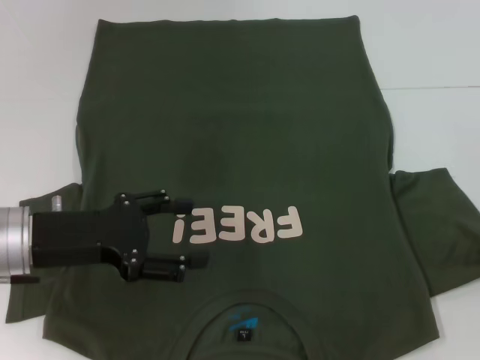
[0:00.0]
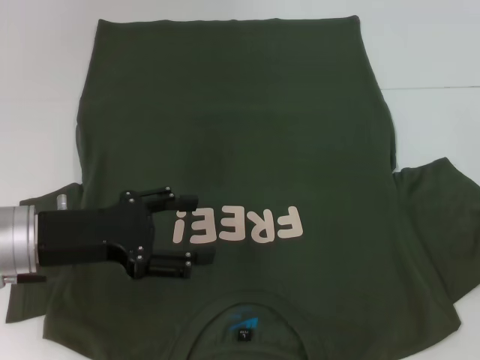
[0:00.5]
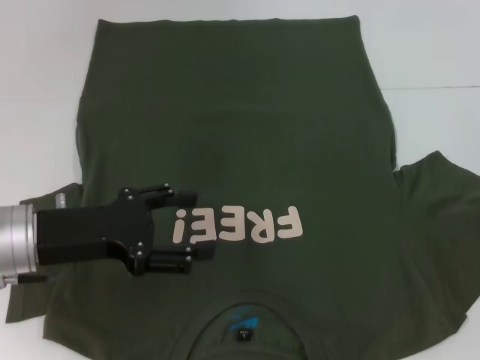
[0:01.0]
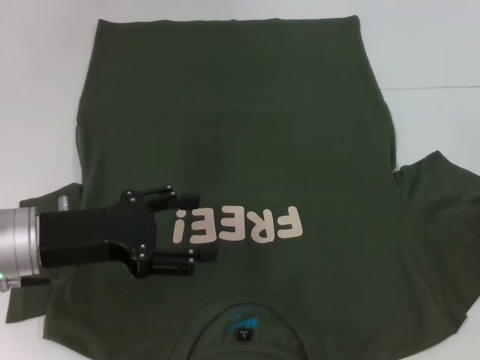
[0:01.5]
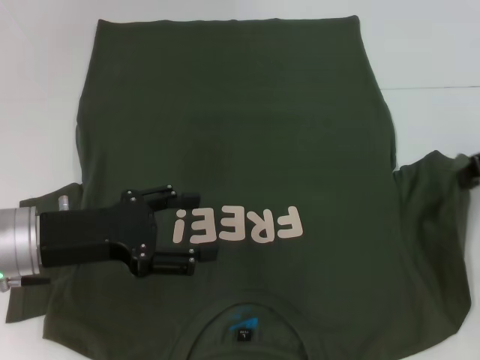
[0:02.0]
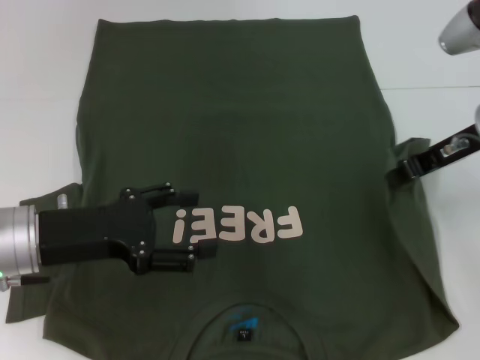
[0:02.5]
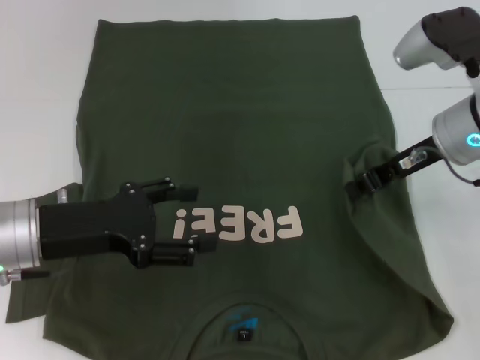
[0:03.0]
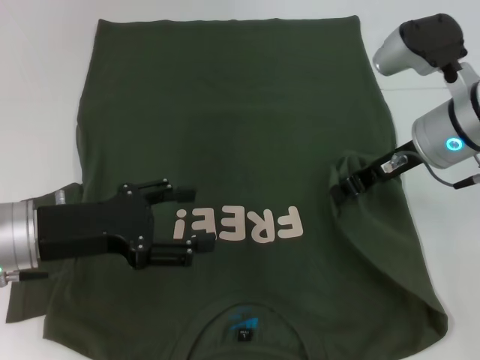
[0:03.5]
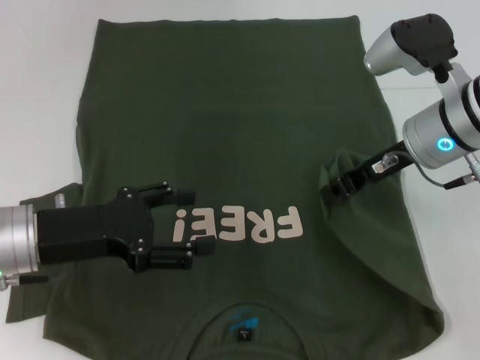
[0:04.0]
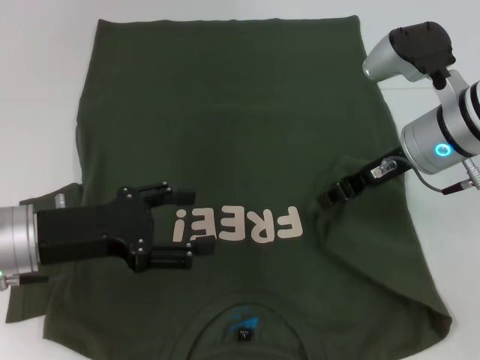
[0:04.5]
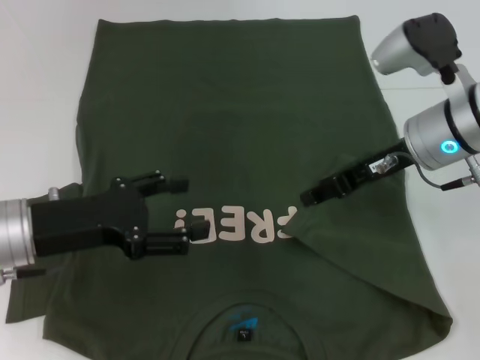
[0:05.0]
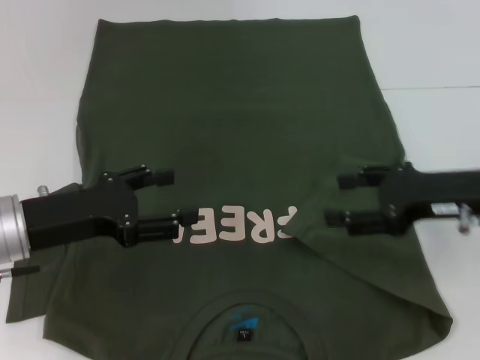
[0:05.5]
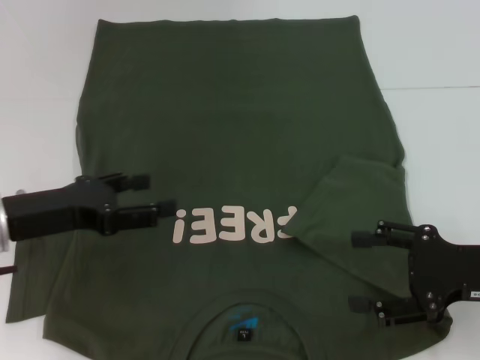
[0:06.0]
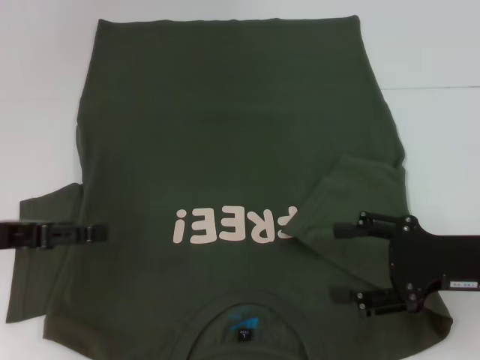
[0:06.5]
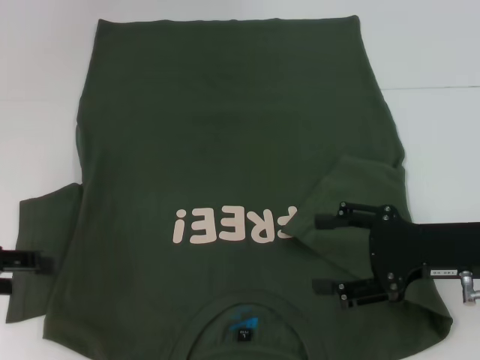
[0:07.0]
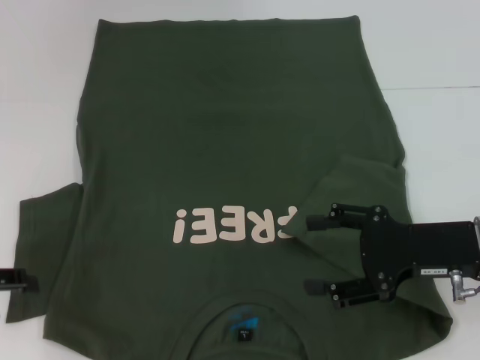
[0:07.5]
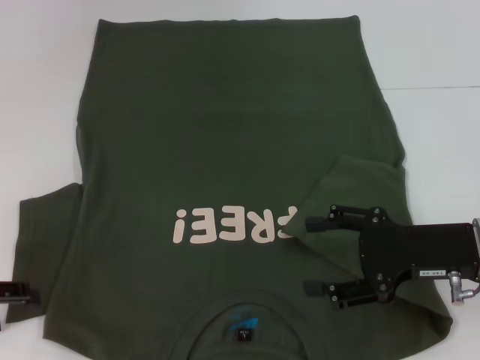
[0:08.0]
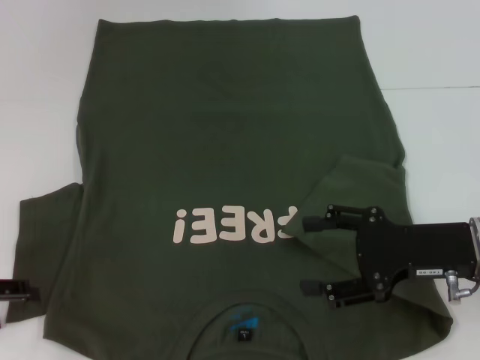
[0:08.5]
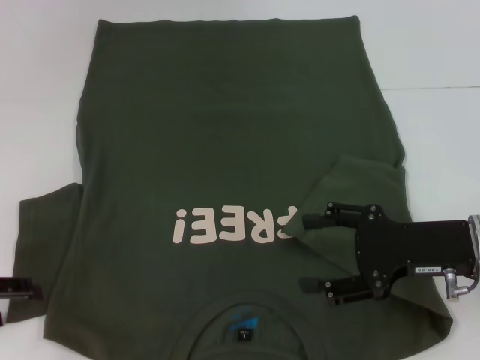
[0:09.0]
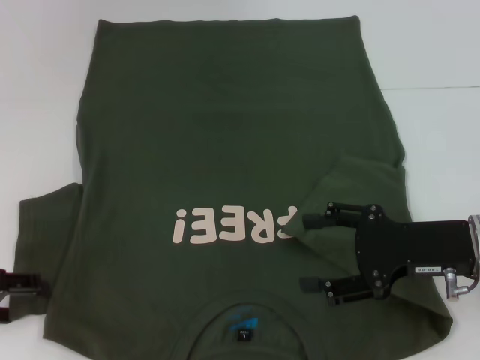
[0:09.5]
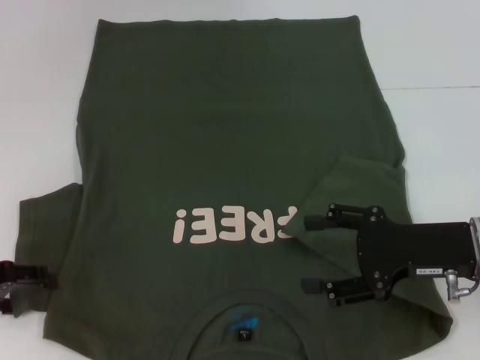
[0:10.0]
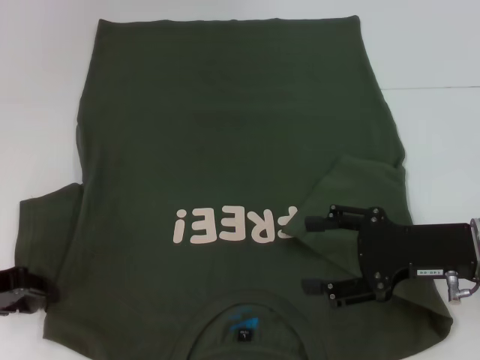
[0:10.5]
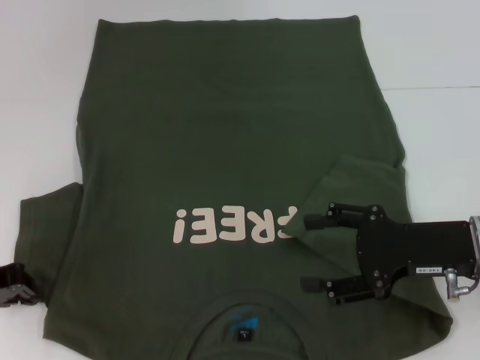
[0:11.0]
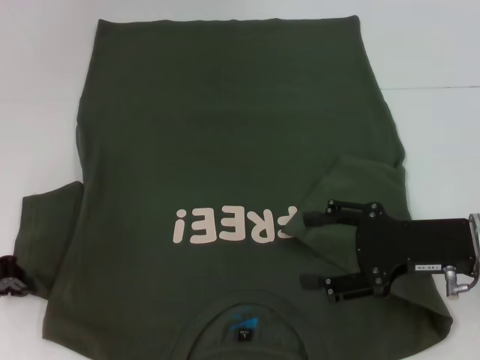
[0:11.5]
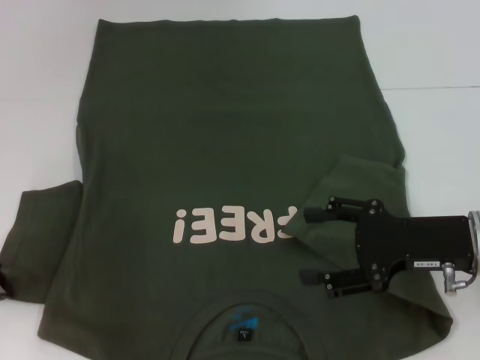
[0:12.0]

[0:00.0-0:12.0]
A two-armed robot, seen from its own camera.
Step, 0:00.0 to 0:04.5: Fold the bottom right sleeve with your right hand.
0:00.0 to 0:02.0: The right gripper heads upward, covering some 5 cm.
0:02.0 to 0:04.0: The right gripper moves to the left, approximately 10 cm.
0:04.0 to 0:06.0: The right gripper is displaced backward, to the right and downward by roughly 15 cm, and opens.
0:06.0 to 0:08.0: The left gripper moves to the left, about 10 cm.
0:08.0 to 0:10.0: There are only small adjustments of the grippers.
0:10.0 to 0:12.0: The left gripper closes up.

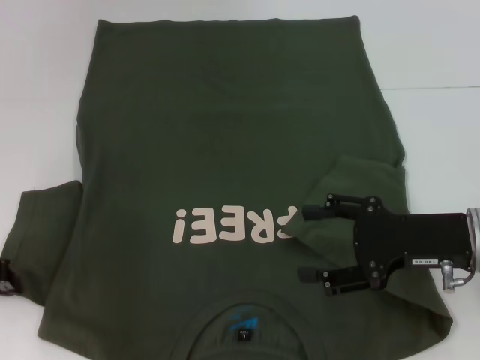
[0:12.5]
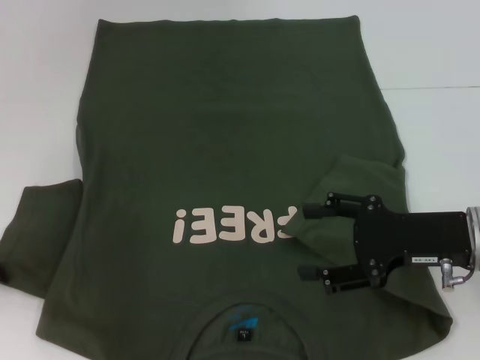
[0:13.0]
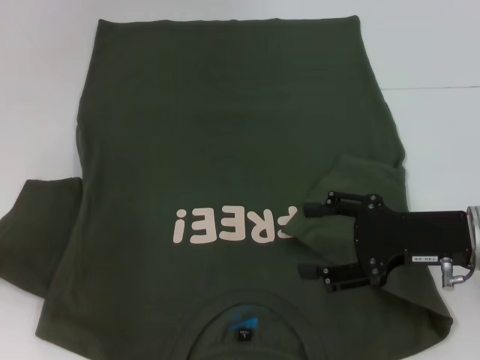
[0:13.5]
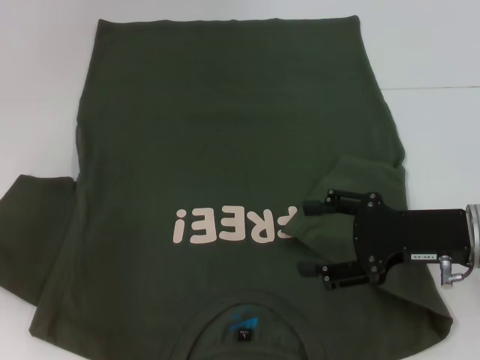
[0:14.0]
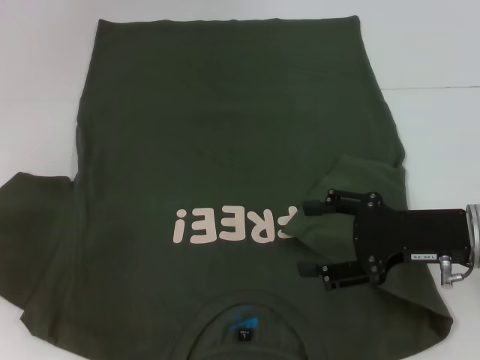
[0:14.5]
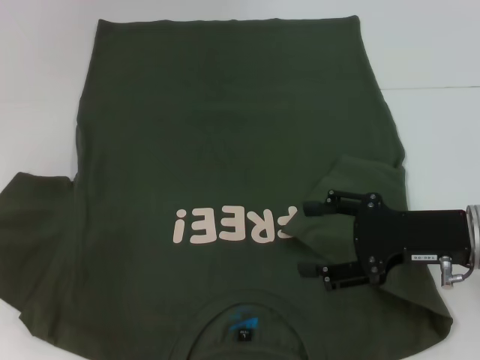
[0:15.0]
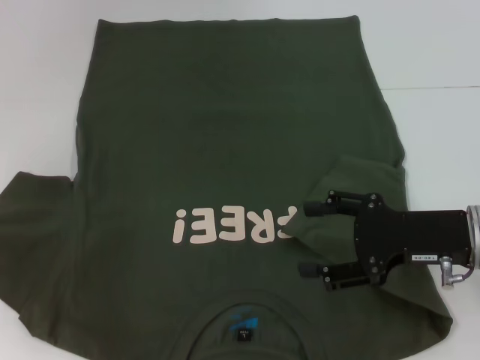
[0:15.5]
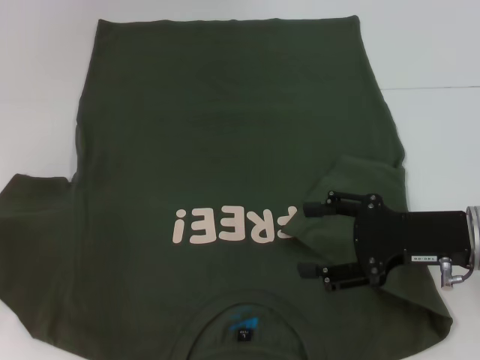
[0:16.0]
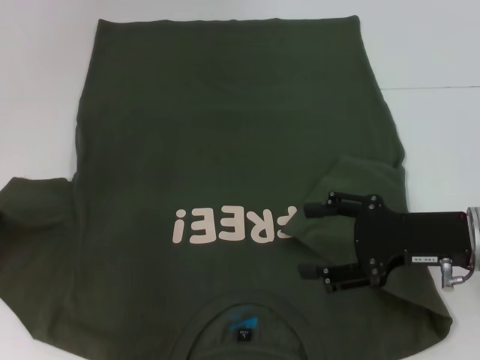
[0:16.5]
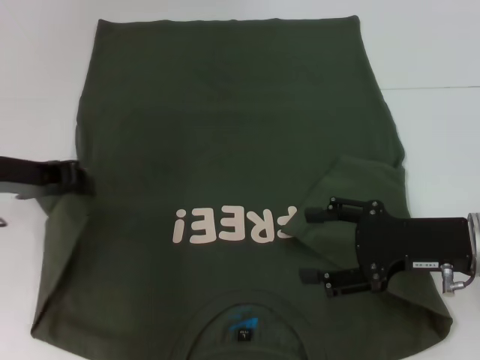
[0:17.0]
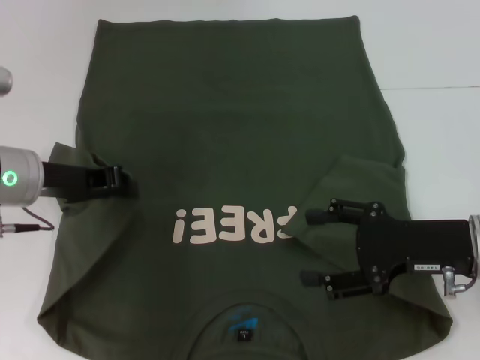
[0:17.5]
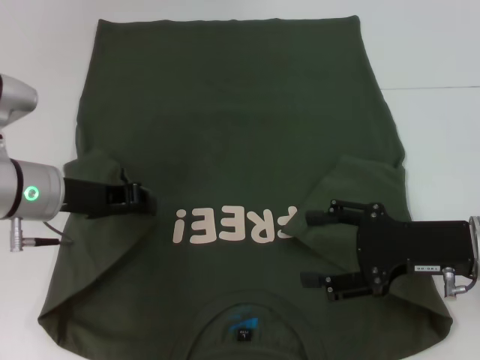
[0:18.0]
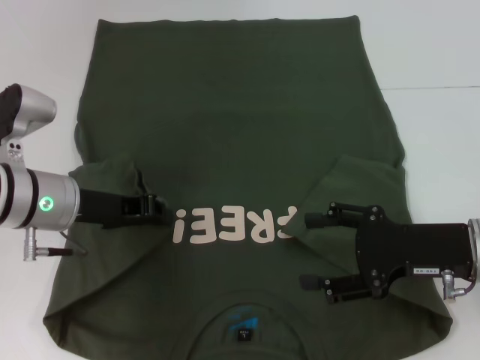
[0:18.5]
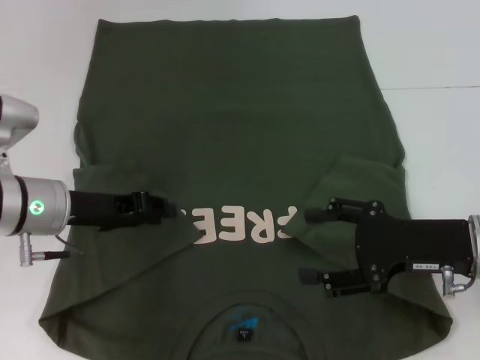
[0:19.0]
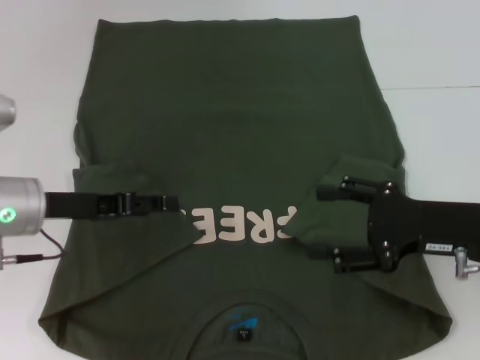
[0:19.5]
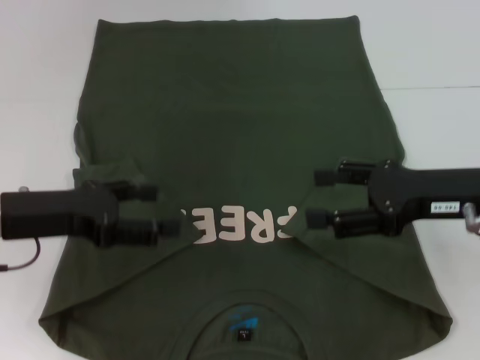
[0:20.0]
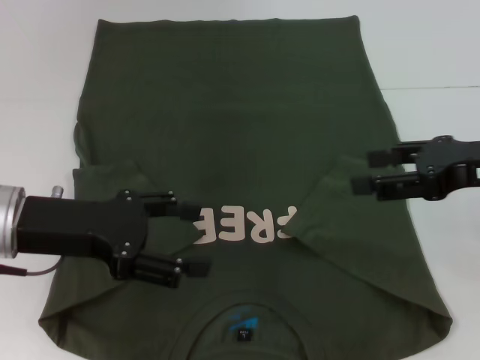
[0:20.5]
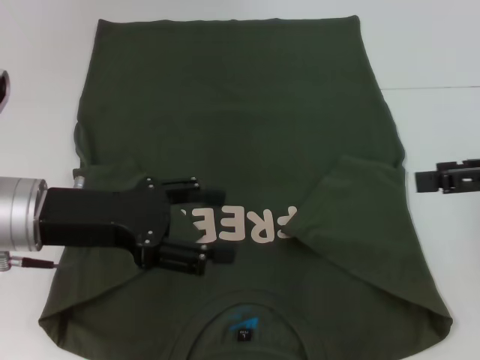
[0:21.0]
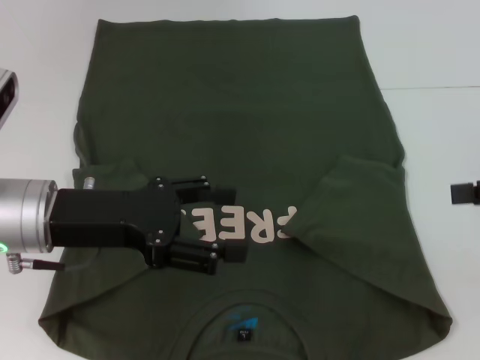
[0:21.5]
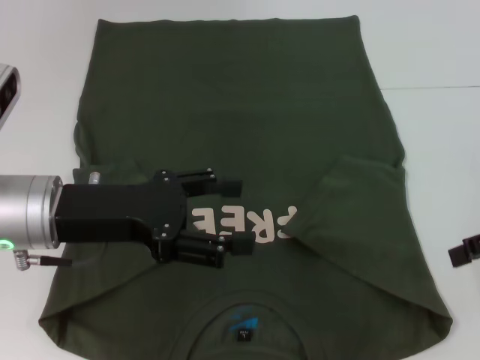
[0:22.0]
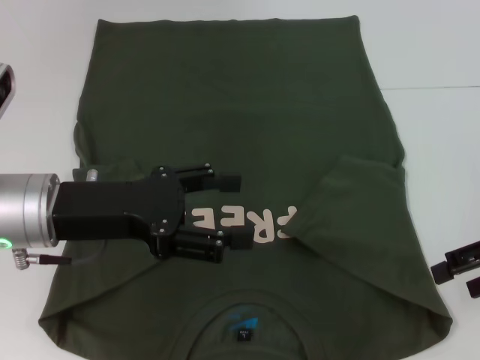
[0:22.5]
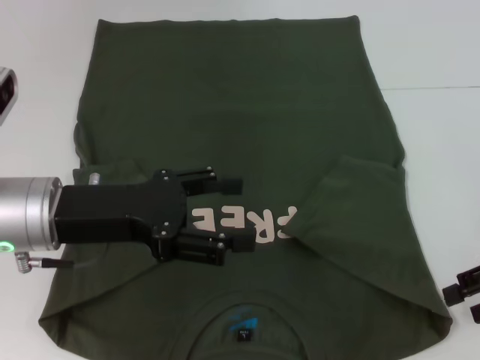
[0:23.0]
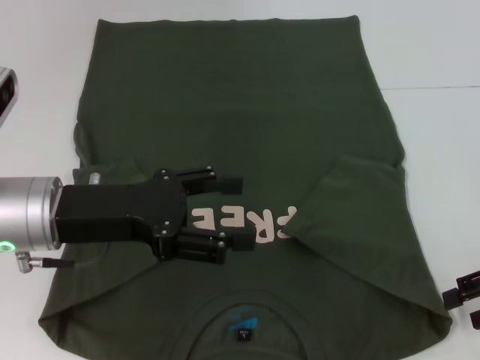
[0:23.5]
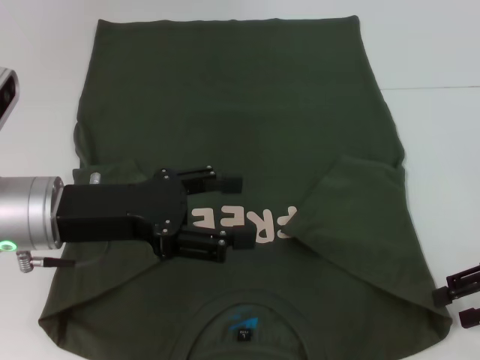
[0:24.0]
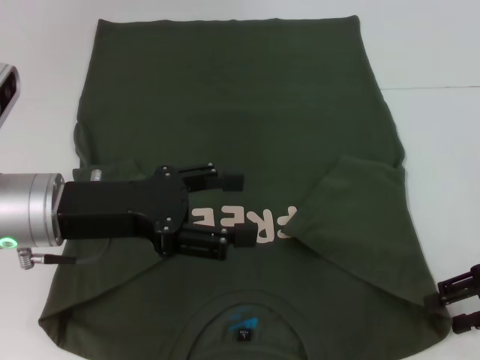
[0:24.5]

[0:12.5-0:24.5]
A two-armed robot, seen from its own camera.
Step, 0:12.5 to 0:18.5: Fold the bottom left sleeve with your left hand.
0:12.5 to 0:14.5: The grippers make only small movements.
0:16.5 to 0:18.5: The left gripper is displaced to the right and downward by about 15 cm.
0:18.5 to 0:20.5: The right gripper is displaced upward by approximately 10 cm, while the left gripper travels backward by about 5 cm, and opens.
0:20.5 to 0:22.5: The right gripper is displaced to the right by roughly 5 cm.
0:22.5 to 0:24.5: The right gripper shifts approximately 5 cm downward.

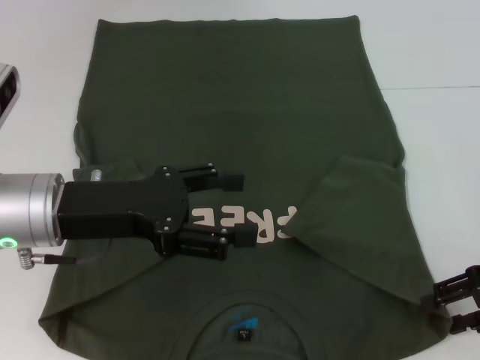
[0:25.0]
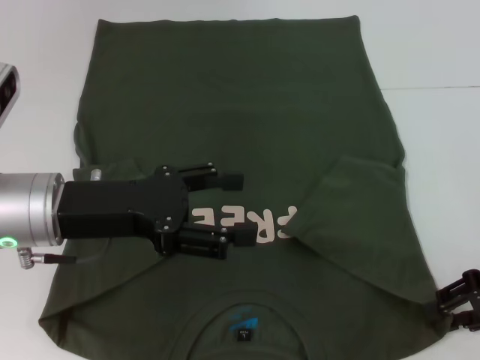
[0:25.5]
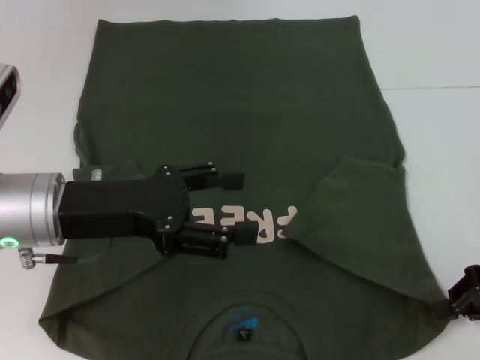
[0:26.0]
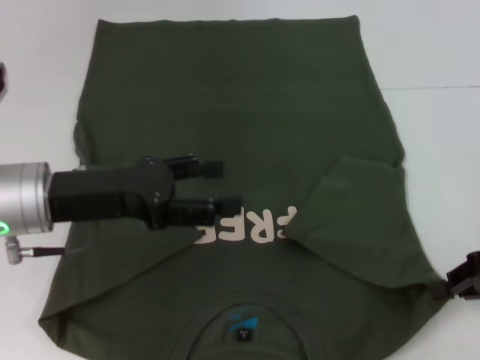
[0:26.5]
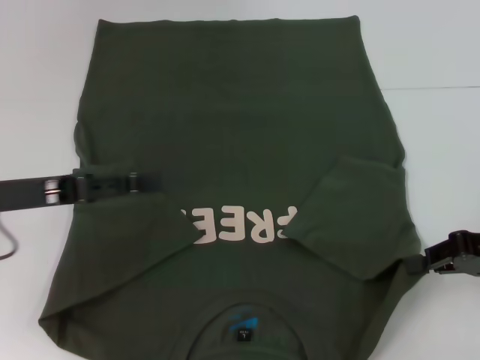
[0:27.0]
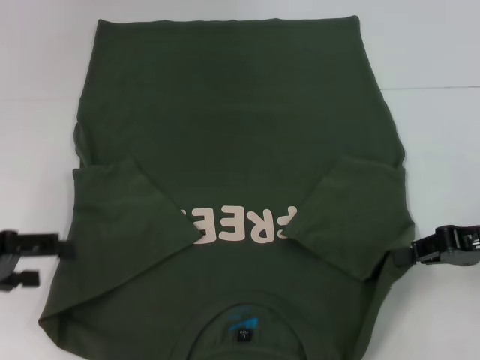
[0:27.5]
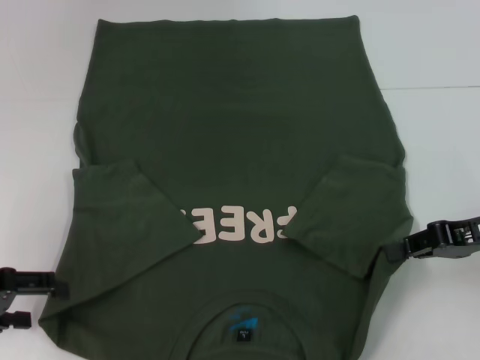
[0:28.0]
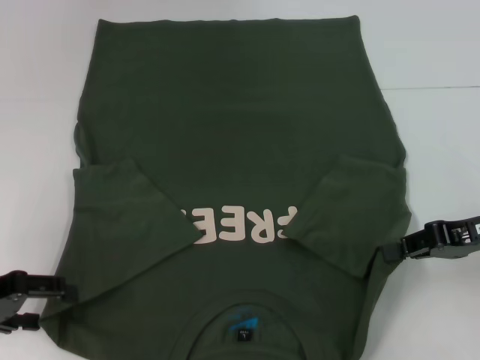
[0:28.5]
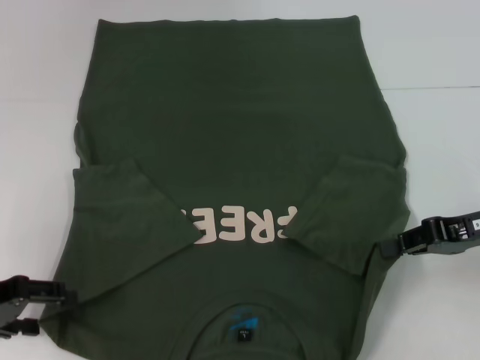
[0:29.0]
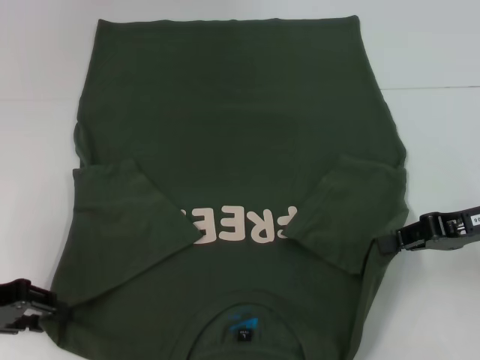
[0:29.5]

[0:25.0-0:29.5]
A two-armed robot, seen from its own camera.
0:25.0 to 0:27.0: The right gripper closes up, while the left gripper shifts approximately 5 cm to the left.
0:27.0 to 0:29.5: The left gripper travels downward and to the left by about 5 cm.
